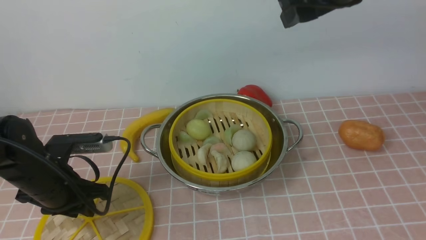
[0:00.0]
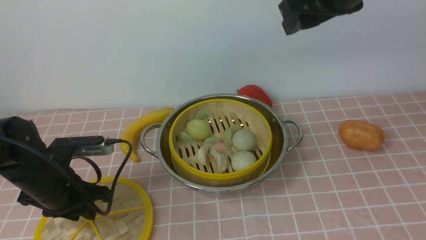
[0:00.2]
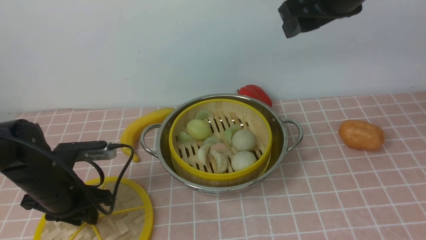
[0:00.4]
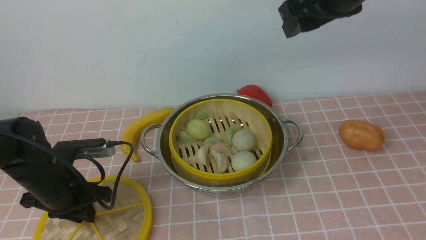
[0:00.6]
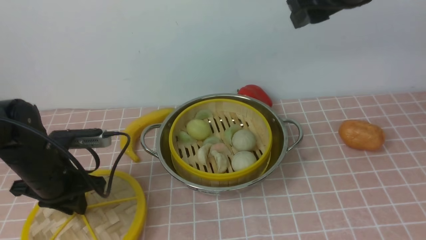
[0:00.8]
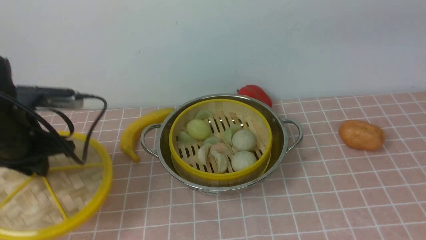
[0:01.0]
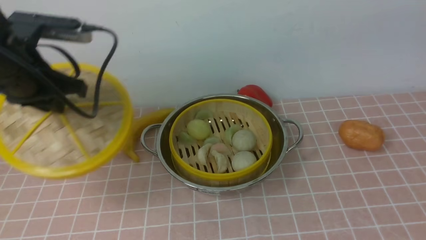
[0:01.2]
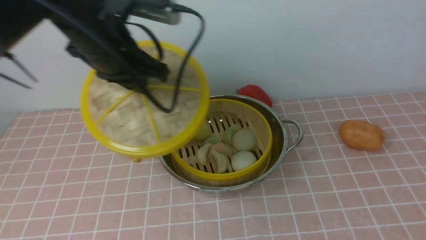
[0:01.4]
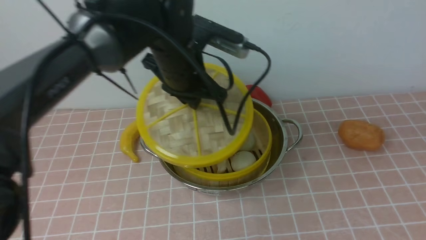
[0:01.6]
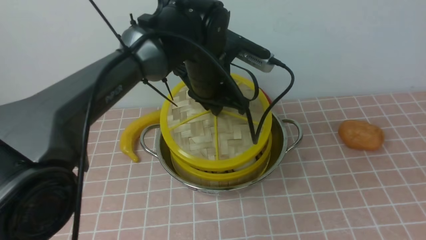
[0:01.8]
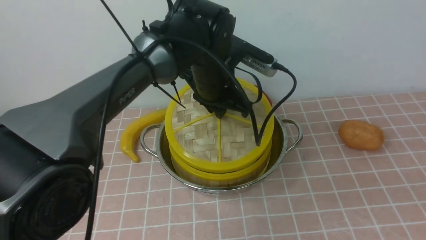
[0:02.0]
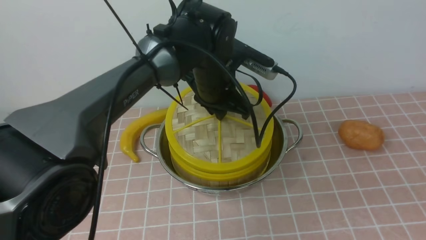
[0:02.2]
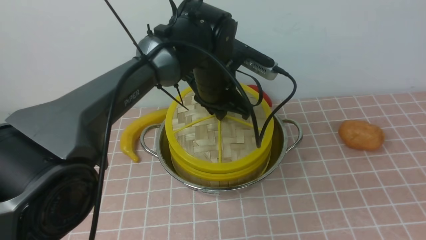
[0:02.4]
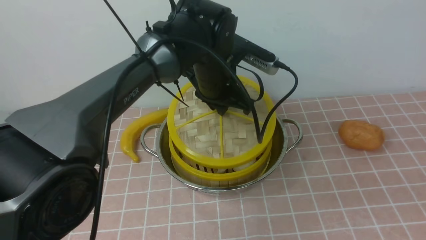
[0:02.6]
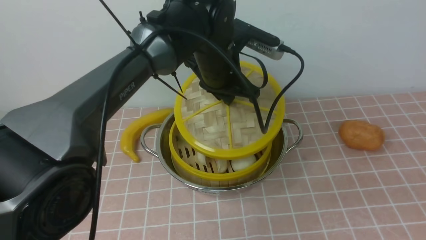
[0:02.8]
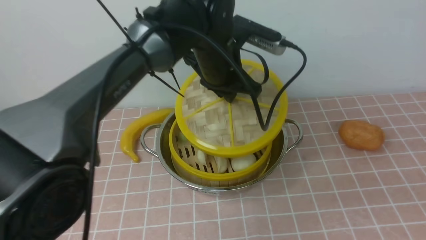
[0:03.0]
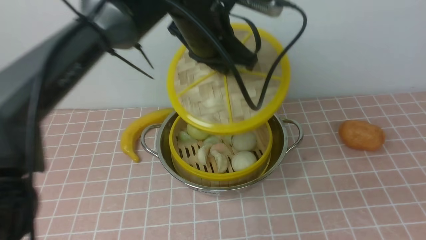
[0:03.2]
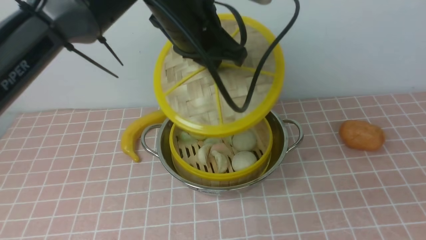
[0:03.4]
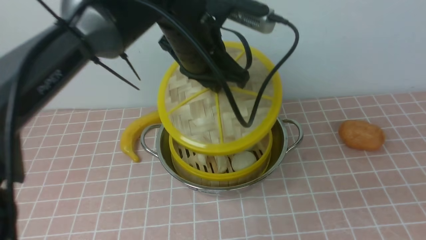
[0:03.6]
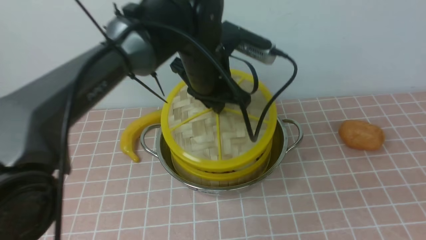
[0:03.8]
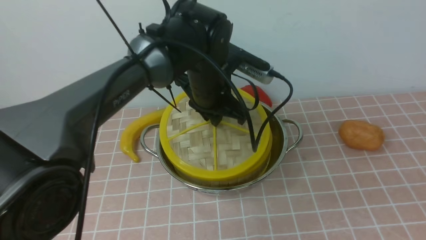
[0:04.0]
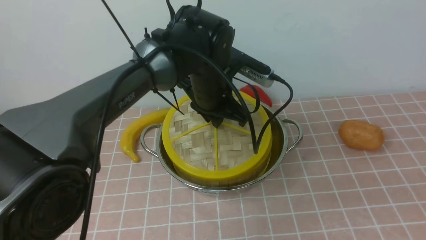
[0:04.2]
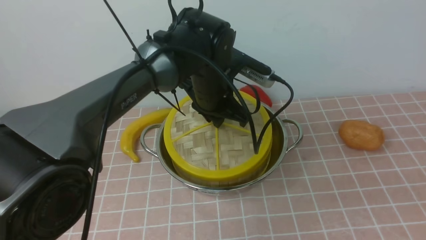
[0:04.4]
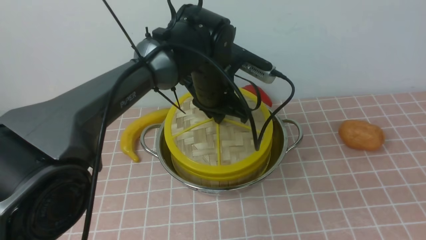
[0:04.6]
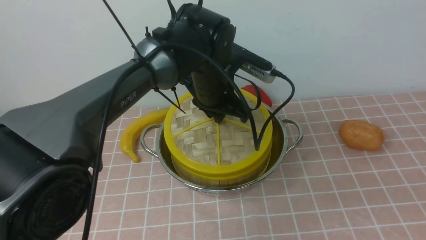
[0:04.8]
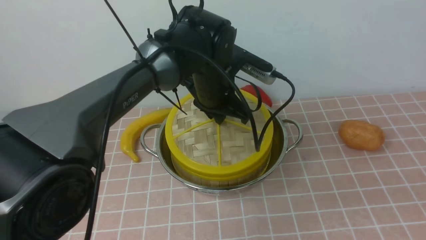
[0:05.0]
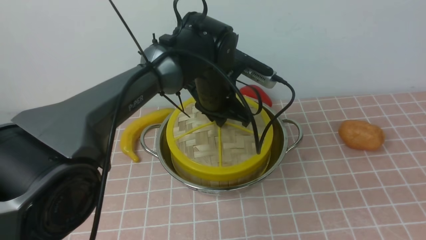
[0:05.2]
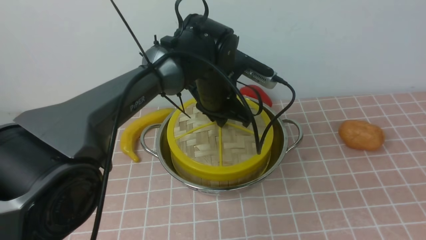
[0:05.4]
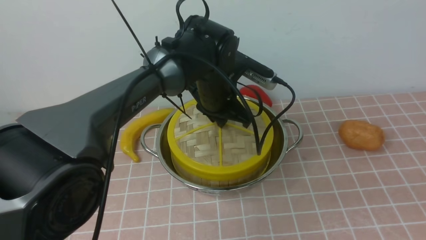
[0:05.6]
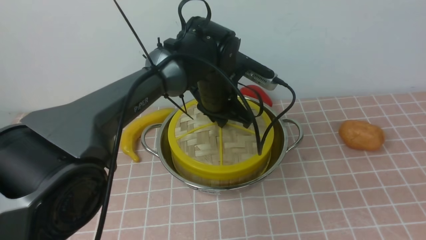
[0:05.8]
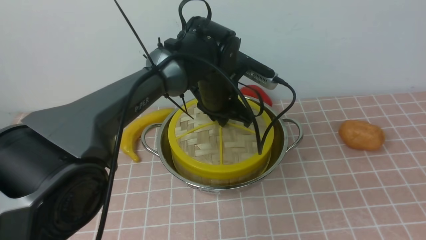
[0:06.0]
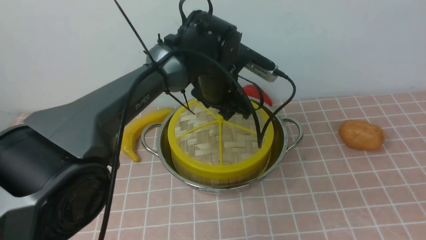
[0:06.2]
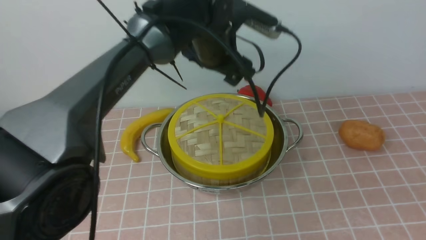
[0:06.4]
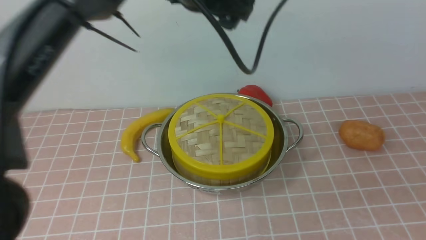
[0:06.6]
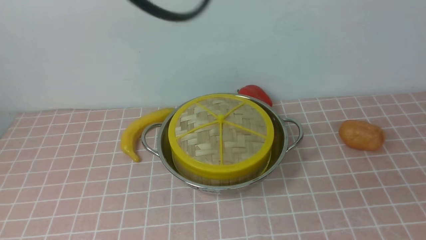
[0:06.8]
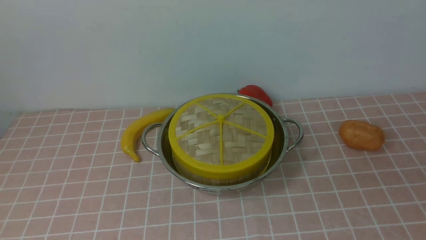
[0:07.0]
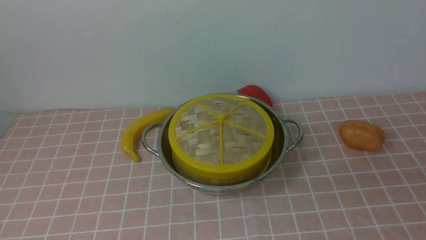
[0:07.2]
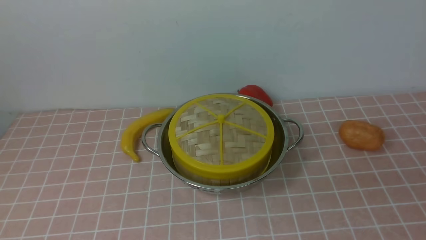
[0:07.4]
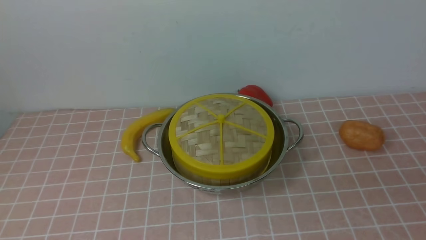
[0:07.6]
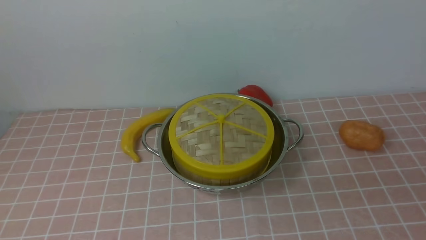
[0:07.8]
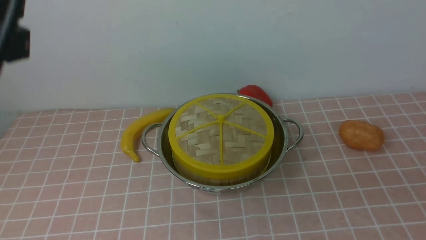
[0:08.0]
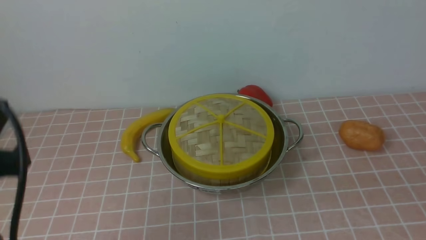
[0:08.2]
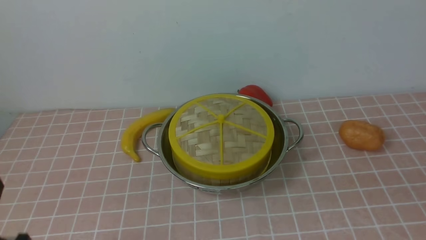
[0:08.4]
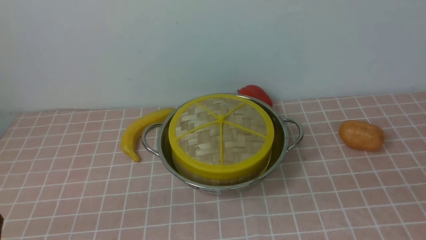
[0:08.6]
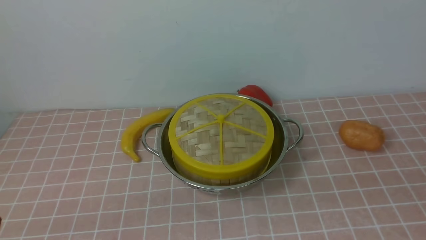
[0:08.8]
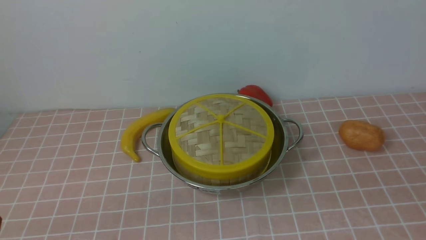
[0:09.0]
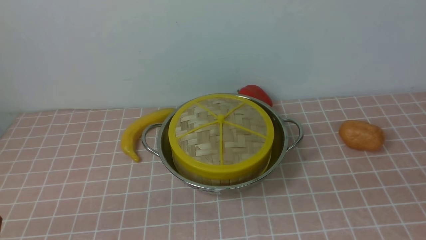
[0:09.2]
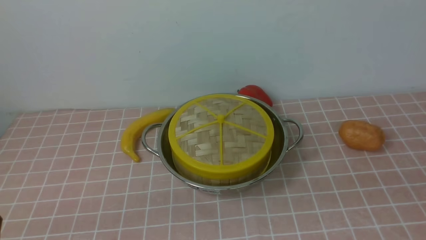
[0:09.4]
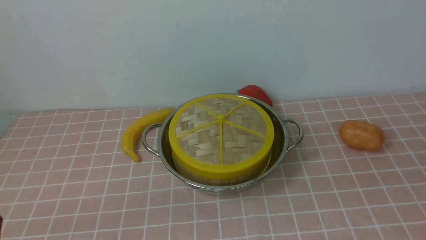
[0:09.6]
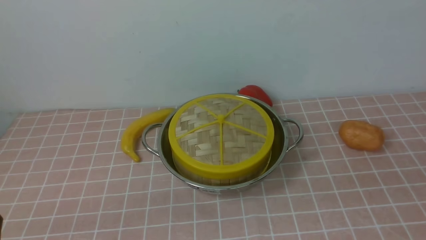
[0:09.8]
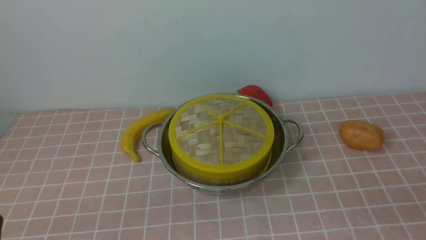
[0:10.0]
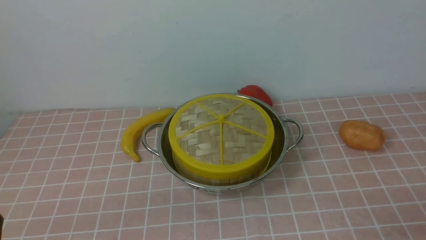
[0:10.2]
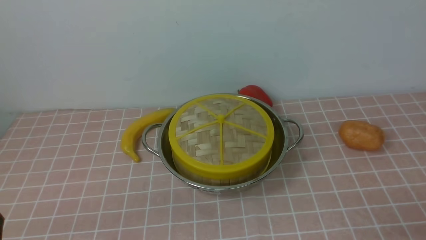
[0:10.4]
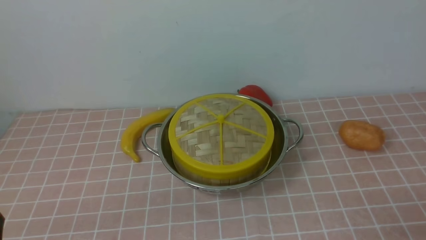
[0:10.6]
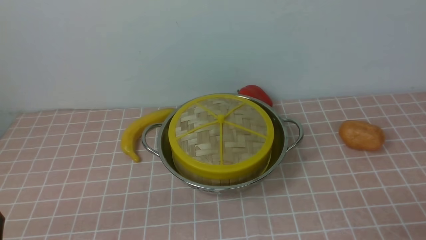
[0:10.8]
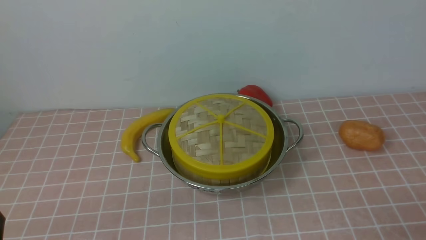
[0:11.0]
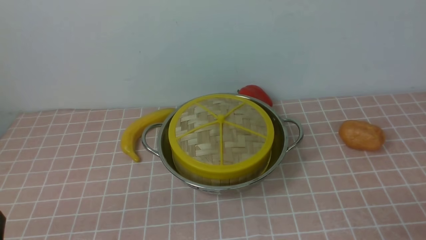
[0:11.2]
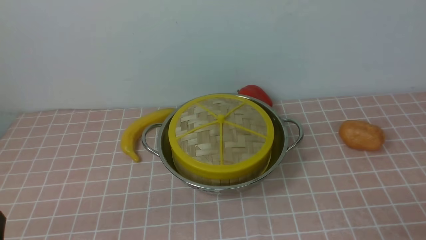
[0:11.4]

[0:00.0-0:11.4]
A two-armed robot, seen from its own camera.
Task of the whole recording: place the steamer in the pot on the pink tablecloth, and put the lid on the steamer.
Step, 0:00.0 to 0:00.8: use the left arm to lift the lid of the steamer.
Step, 0:01.0 to 0:06.2: use the left arm to place the steamer lid on the steamer.
0:00.0 to 0:01.4: The left gripper travels upward, to the right and forward by approximately 20 cm. The right gripper heads backward and to the right, covering some 20 cm.
0:01.4 to 0:02.8: The left gripper shifts roughly 15 cm to the right and downward, while the right gripper shifts about 20 cm backward, downward and to the right.
0:02.8 to 0:04.2: The left gripper moves about 5 cm upward and comes back.
0:04.2 to 0:05.6: The grippers make only small movements.
0:05.6 to 0:07.2: The left gripper heads upward, backward and to the left, covering approximately 40 cm, and opens, then closes once more.

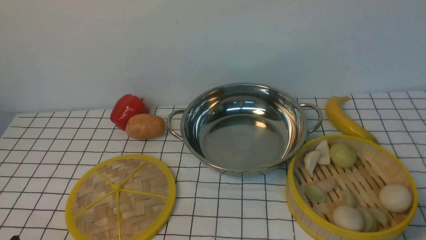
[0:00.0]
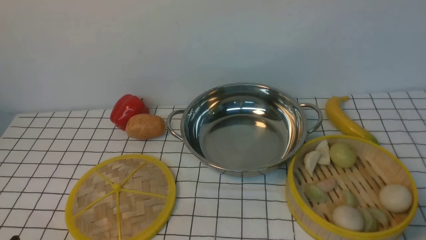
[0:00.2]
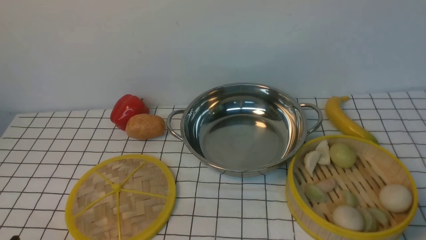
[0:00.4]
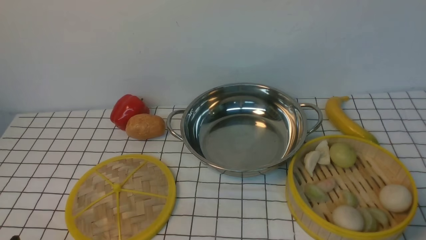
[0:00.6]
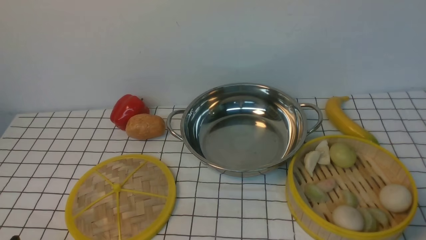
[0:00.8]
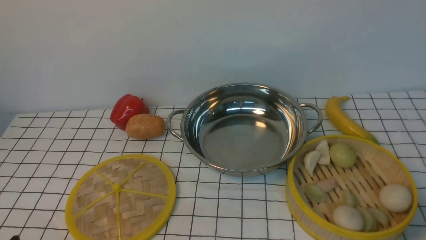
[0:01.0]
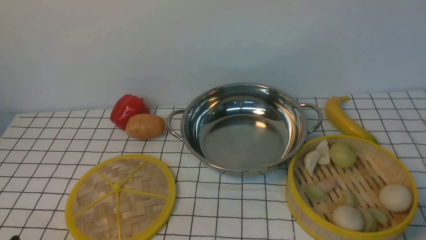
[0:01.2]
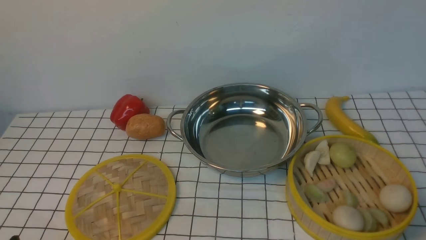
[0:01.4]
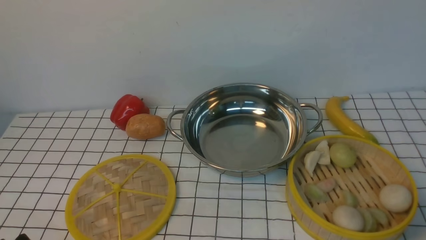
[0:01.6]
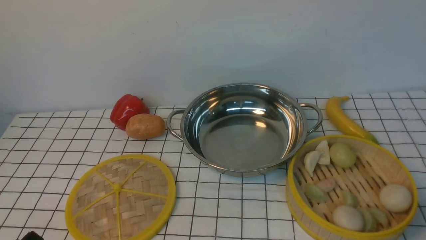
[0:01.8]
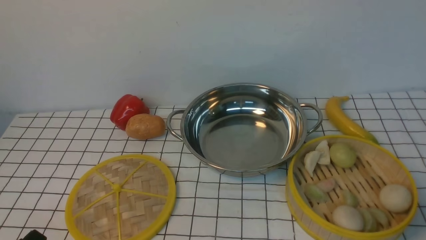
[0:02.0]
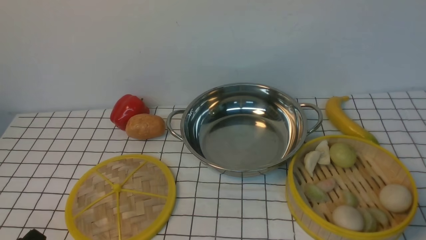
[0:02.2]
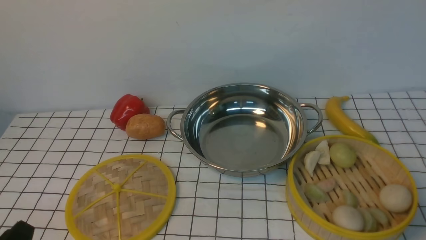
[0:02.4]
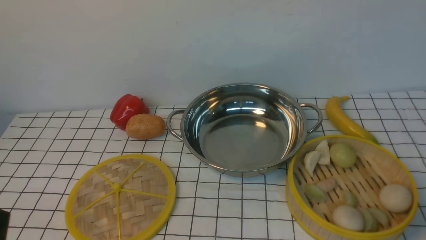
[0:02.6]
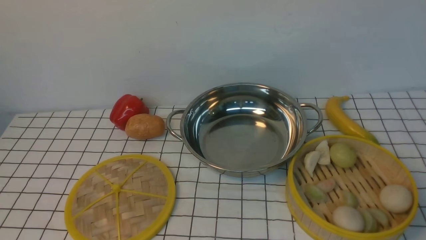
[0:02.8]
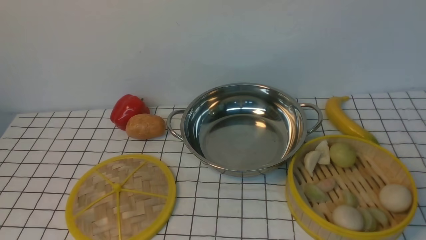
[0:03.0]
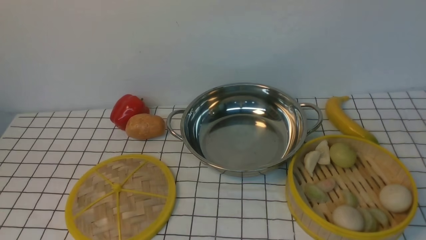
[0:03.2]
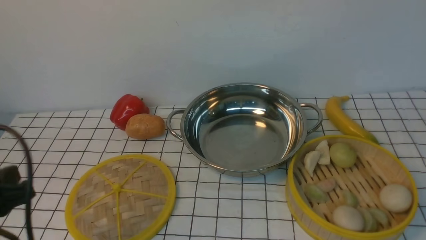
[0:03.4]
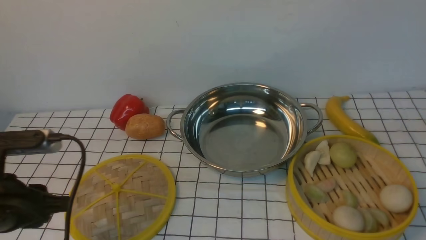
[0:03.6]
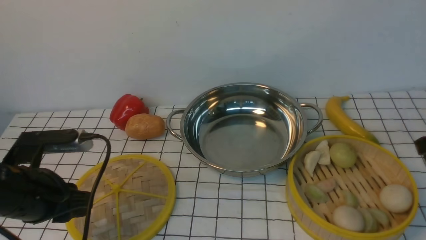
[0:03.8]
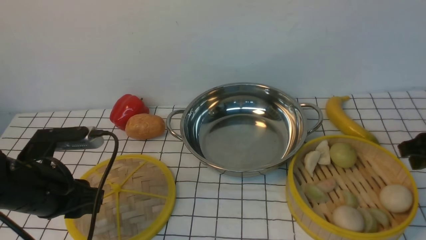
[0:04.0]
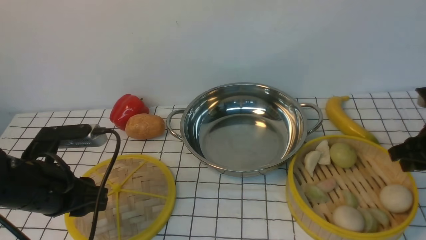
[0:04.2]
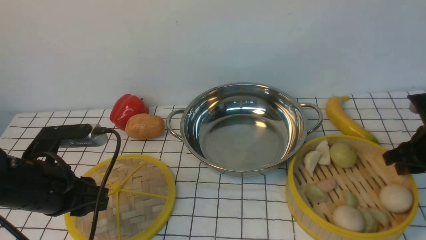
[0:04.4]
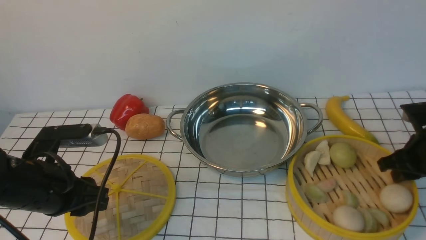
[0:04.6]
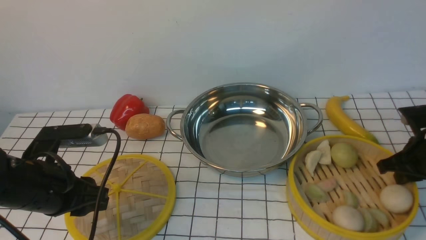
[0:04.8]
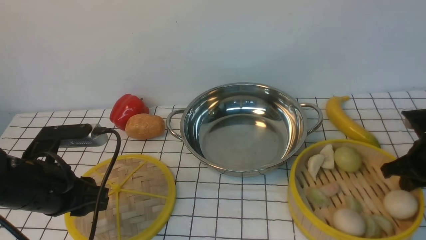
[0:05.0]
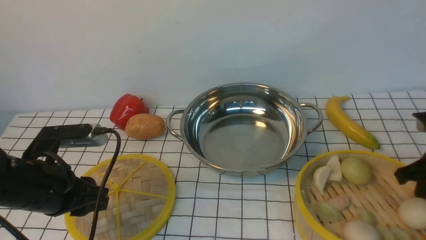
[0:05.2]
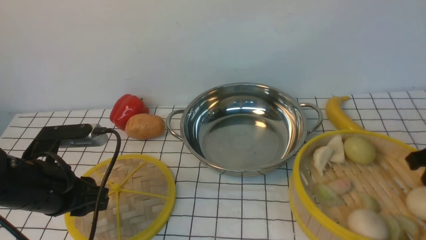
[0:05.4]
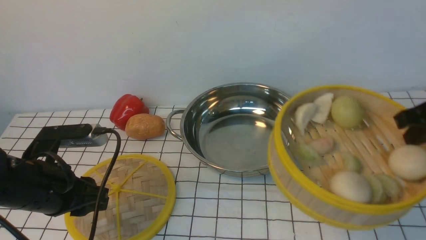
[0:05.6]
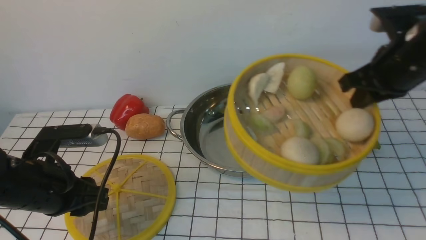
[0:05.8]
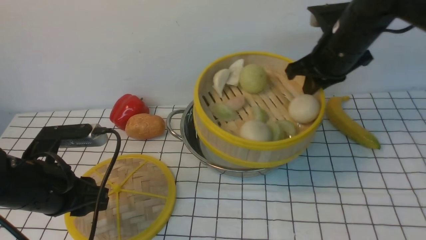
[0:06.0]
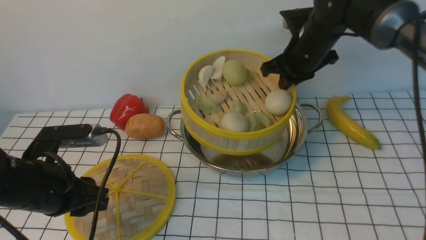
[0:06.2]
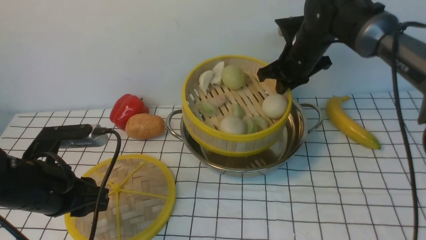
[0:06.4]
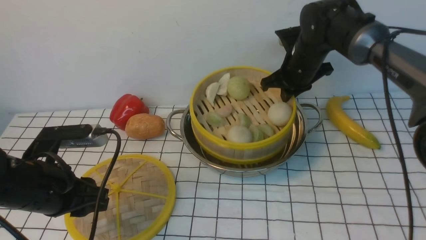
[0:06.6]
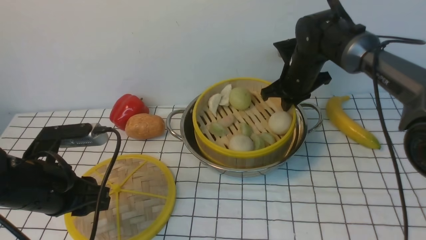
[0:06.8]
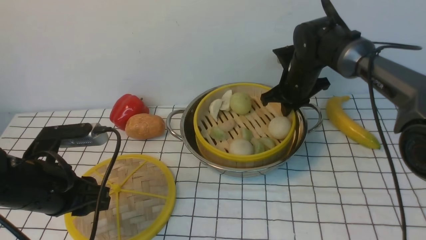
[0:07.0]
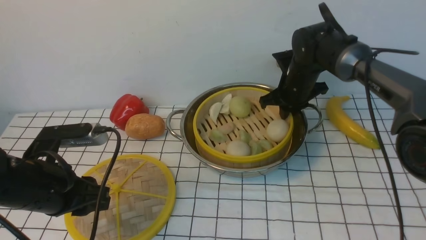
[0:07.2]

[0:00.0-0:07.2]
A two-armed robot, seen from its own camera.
Task of the whole recording: place the steamer in the pot on the white tablecloth, and put the lid on the steamer.
Step, 0:00.0 to 0:05.2: use the right arm to lift the steamer closest to it.
0:02.8 to 0:04.4: Both grippers move forward, approximately 20 cm.
0:04.4 to 0:05.8: The right gripper goes roughly 15 cm upward and to the left, and closes up.
0:05.8 to 0:07.2: The right gripper goes approximately 20 cm forward, downward and to the left.
